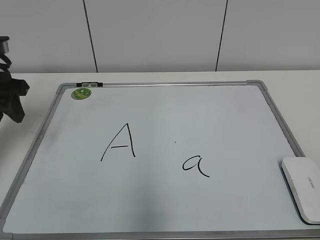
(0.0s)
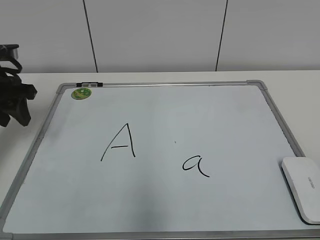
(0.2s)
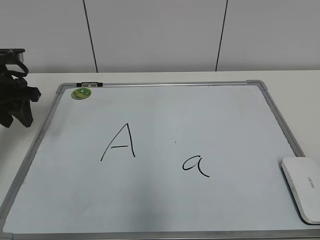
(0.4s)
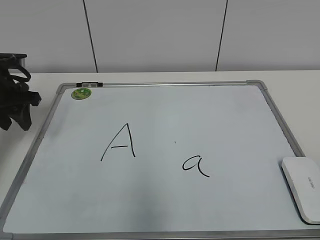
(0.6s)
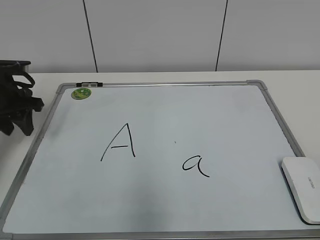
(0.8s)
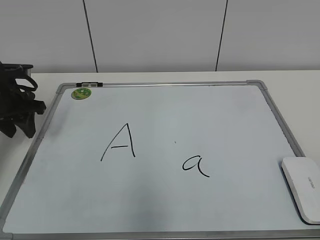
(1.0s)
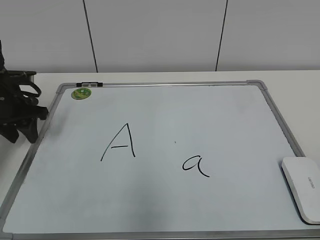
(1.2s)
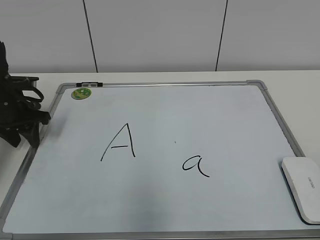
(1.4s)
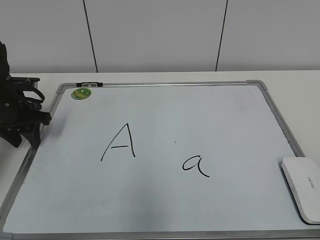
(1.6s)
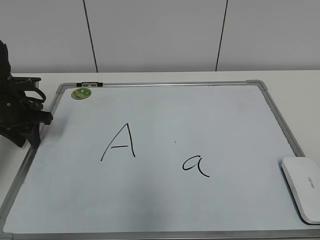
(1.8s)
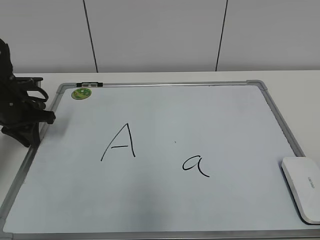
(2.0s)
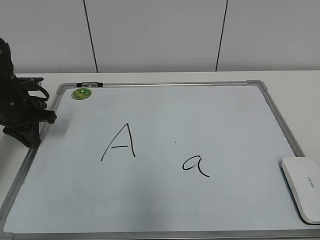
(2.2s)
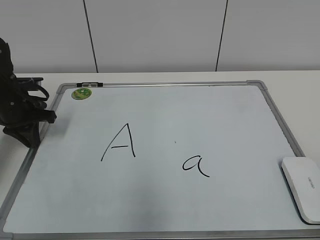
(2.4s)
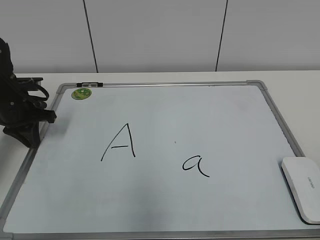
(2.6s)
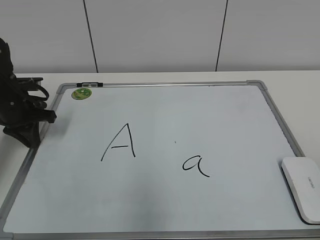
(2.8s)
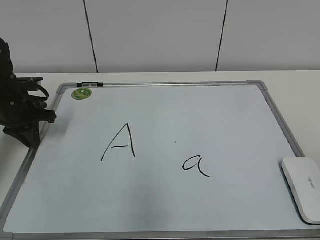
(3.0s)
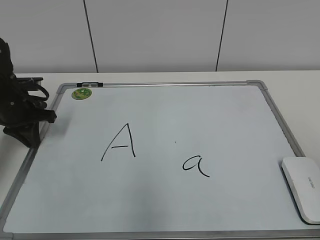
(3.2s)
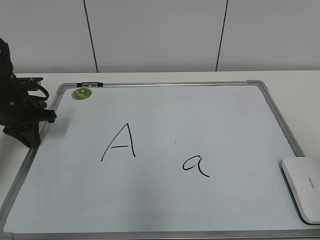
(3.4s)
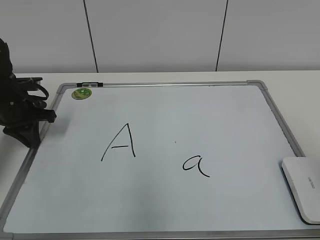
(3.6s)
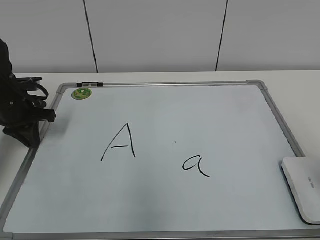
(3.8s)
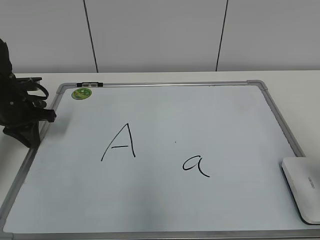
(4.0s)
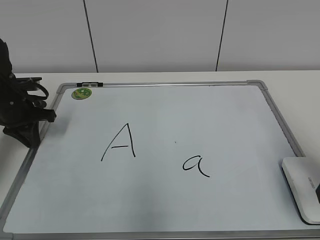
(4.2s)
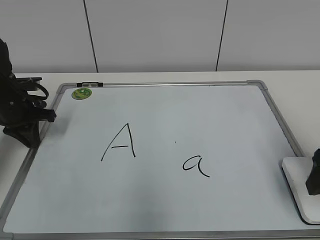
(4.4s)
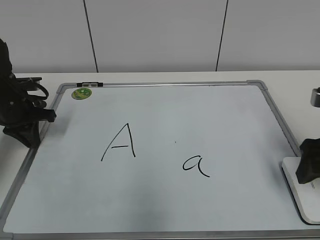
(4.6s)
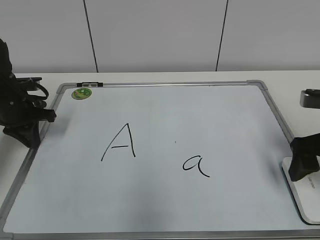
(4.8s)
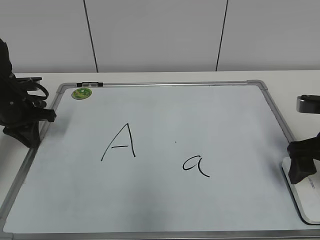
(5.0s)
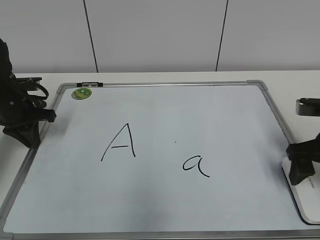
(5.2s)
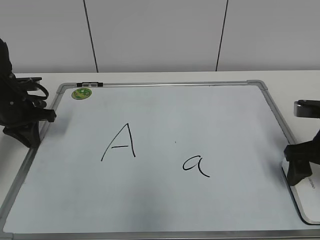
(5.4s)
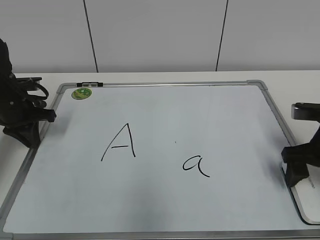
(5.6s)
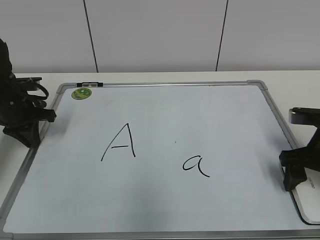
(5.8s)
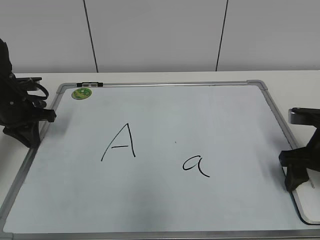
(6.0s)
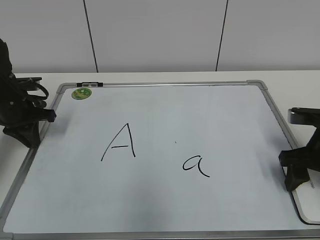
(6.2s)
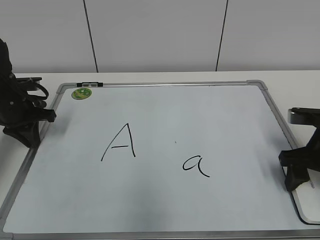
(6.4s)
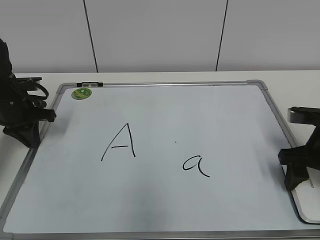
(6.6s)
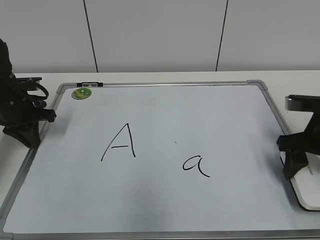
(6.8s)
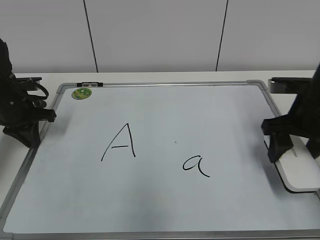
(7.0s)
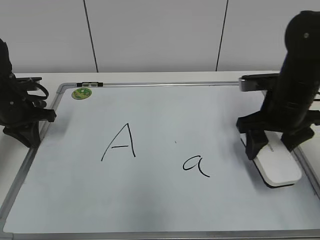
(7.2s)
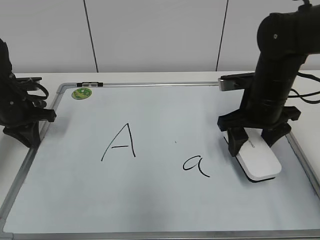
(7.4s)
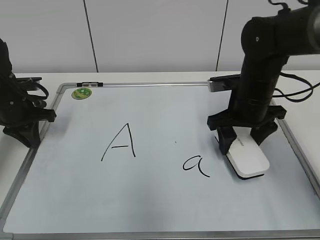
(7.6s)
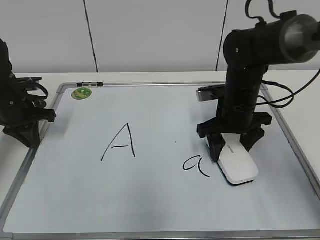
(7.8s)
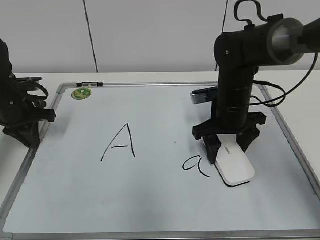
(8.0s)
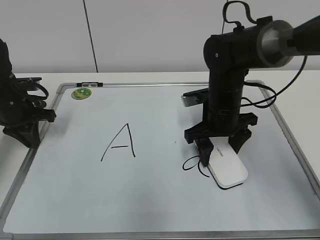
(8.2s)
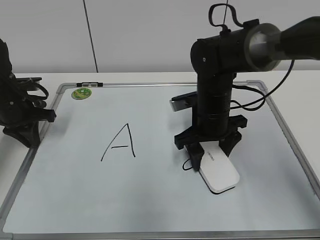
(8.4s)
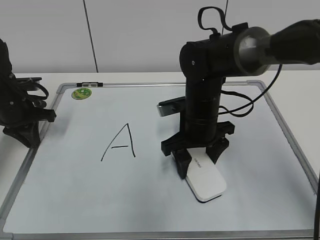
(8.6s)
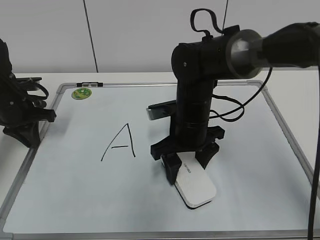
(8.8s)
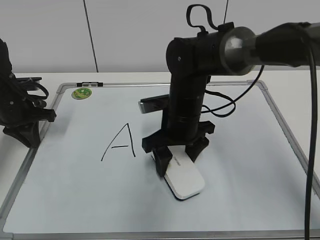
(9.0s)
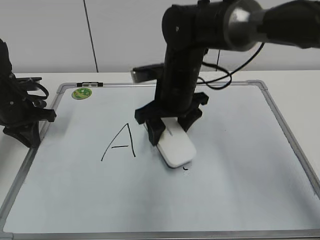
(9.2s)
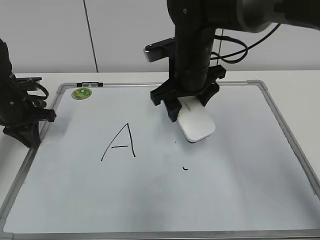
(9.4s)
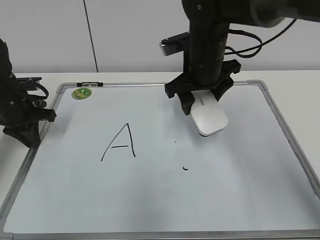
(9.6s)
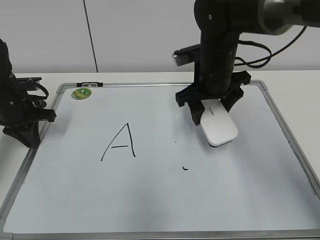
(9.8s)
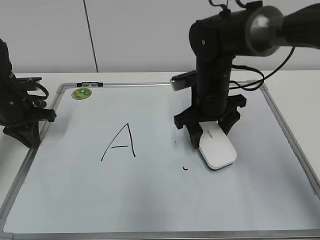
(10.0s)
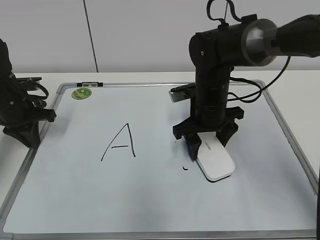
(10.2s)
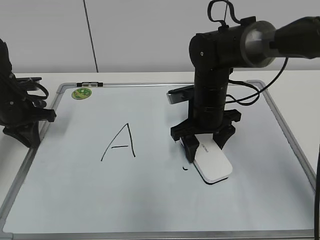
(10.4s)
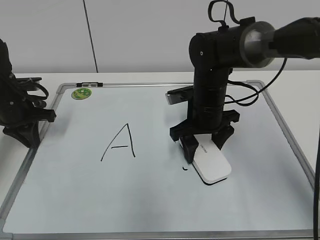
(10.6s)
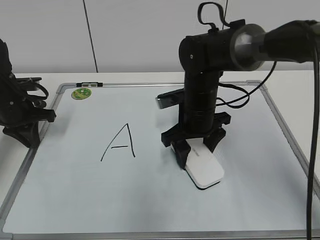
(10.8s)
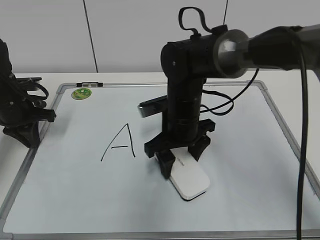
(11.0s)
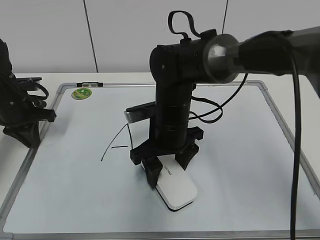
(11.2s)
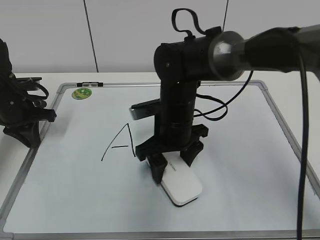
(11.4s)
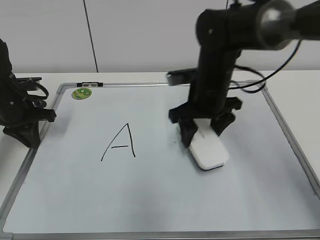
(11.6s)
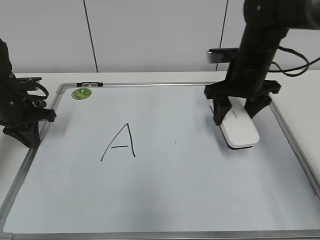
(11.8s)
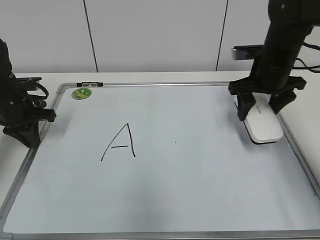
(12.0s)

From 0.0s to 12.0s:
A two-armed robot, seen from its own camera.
Task of the whole recording: pick up the eraser on the blackboard and erase the letter "a".
Step, from 0.0s to 2.0s: Hold the drawing board steady with your left hand.
Step, from 2.2s to 6.2s: Grab the eraser with your right hand.
Step, from 6.6s to 11.2s: Erase the letter a with your right hand.
From 0.0s to 1.6s: The left gripper heads downward, covering some 10 cm.
From 1.6s to 3.0s: The left gripper closes.
From 3.0s to 4.4s: The right gripper moves forward and downward, about 20 cm, and opens up.
From 4.4s to 6.0s: The right gripper moves forward and downward, some 10 cm, and closes.
From 6.0s to 7.6s: The right gripper heads to the left and forward, covering approximately 15 cm, and closes up.
From 7.6s to 9.0s: The right gripper heads to the left, covering some 10 cm.
From 9.0s to 10.4s: The right gripper reaches some 5 cm upward, then returns.
From 10.4s to 12.0s: The right gripper travels to the right and upward by some 15 cm.

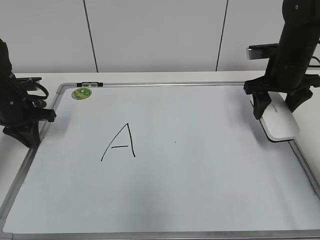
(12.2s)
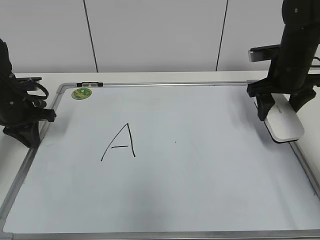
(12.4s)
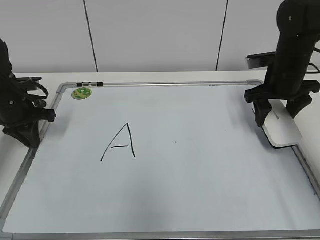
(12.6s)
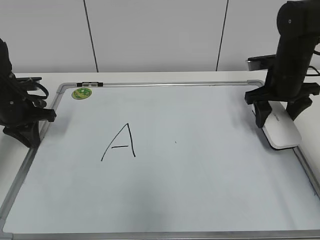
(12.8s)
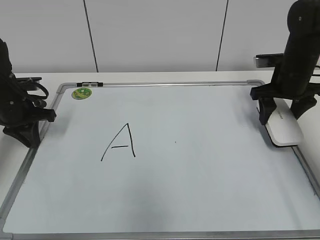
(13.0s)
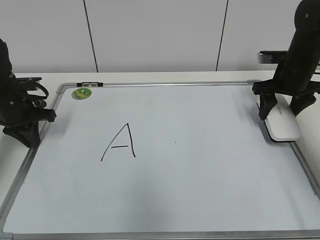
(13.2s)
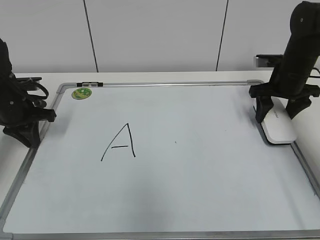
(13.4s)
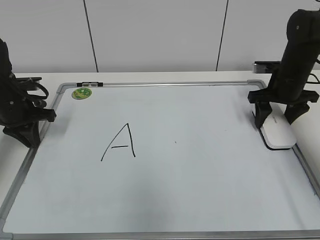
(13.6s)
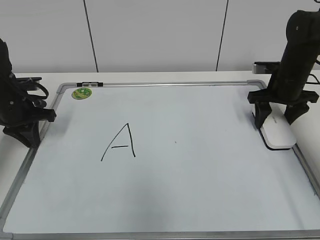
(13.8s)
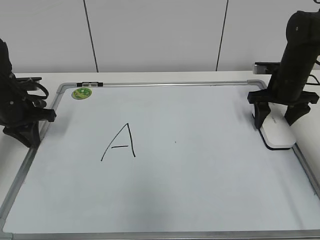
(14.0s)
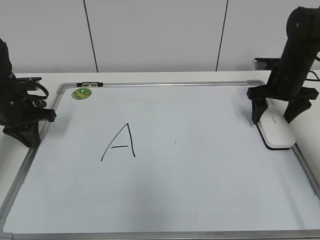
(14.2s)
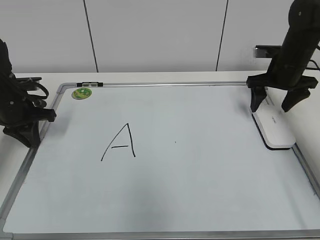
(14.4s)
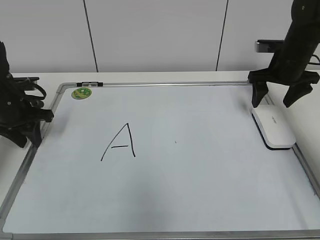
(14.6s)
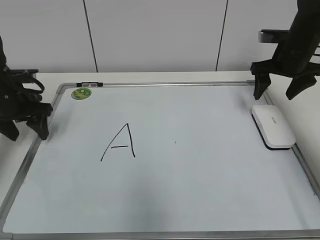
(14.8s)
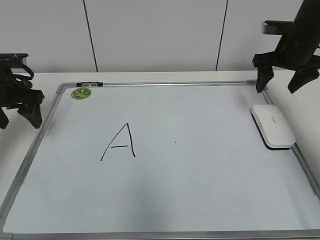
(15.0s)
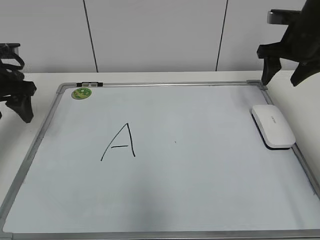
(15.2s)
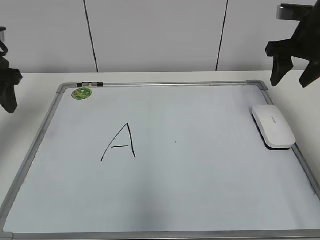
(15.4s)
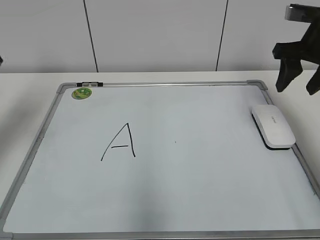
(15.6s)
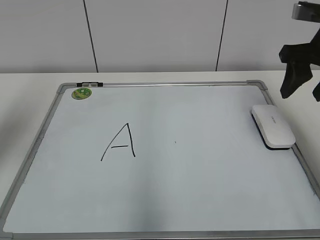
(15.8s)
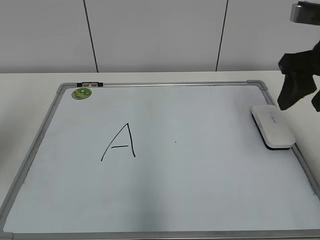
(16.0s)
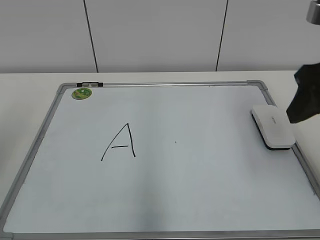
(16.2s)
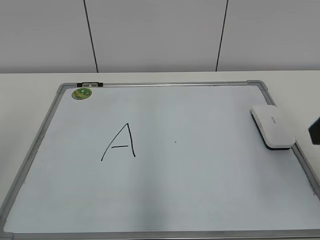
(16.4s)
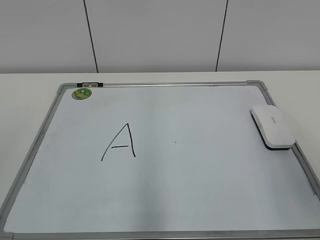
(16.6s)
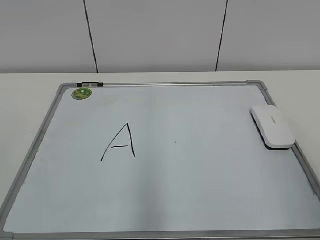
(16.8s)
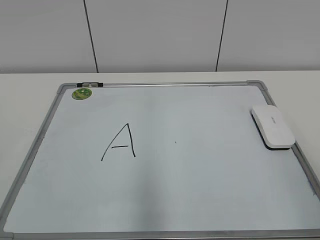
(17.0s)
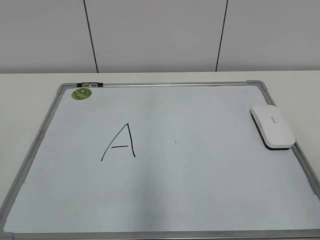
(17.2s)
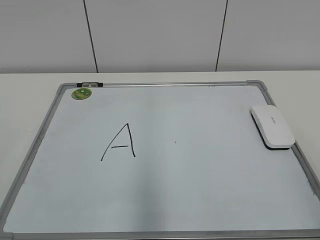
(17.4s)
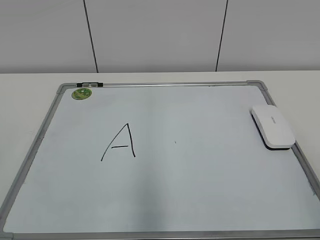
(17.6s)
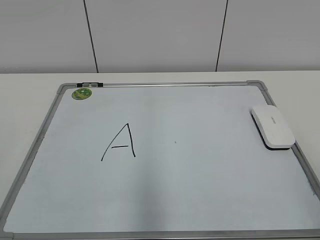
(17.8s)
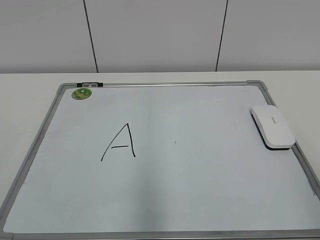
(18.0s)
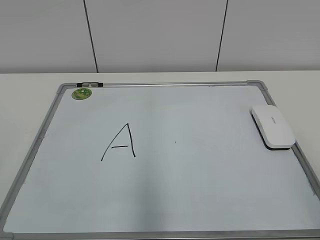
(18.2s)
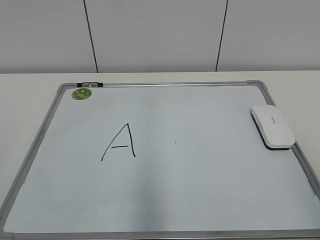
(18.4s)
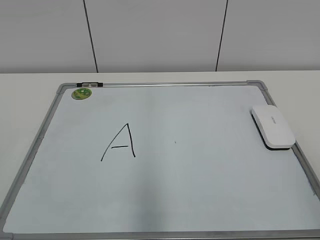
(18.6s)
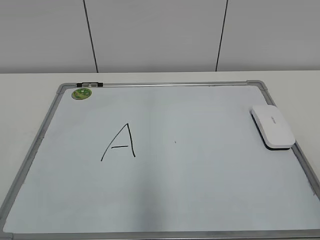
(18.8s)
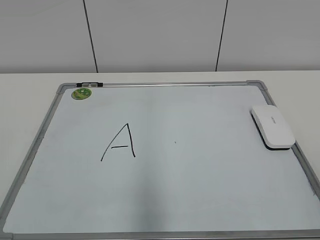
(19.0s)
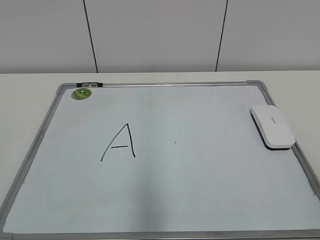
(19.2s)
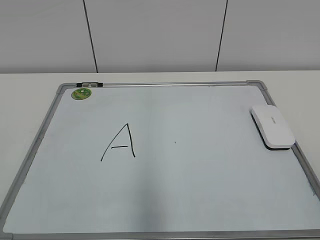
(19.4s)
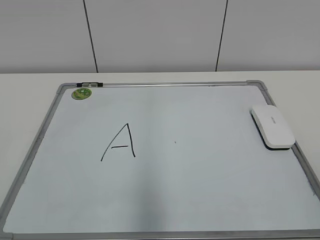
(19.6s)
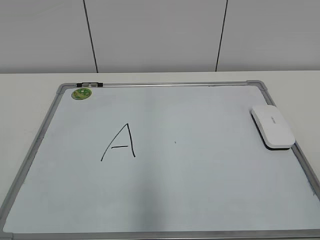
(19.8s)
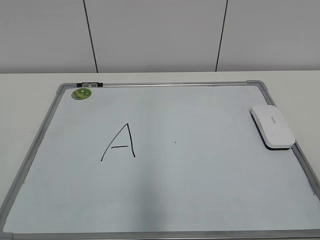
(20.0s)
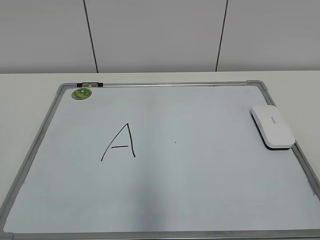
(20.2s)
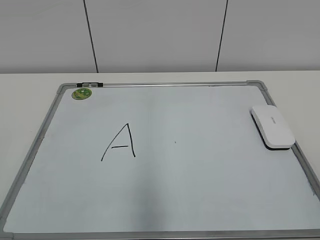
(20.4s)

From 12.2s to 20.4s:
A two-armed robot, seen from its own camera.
Task of the whole recording: pick up the eraser on the blackboard and erase the letter "a".
Step, from 12.2s to 14.2s: Put down the eraser with your right hand.
From 12.2s to 13.8s: The right gripper goes some 5 cm downward.
From 13.8s to 15.4s: The grippers both shift upward by roughly 10 cm. The right gripper opens, then closes again; the left gripper opens.
From 15.4s to 17.2s: Both grippers travel together backward, about 35 cm.

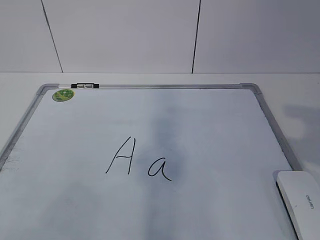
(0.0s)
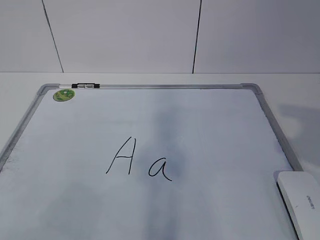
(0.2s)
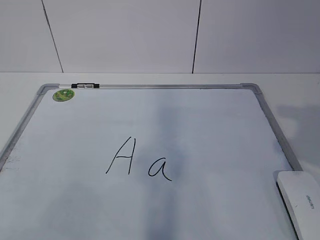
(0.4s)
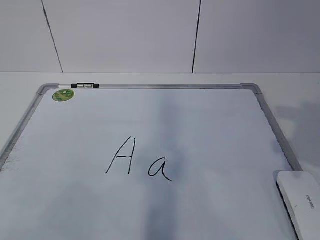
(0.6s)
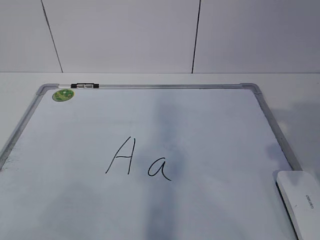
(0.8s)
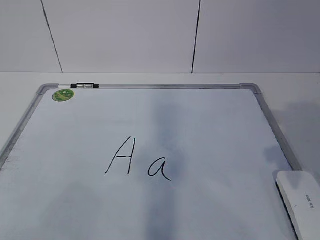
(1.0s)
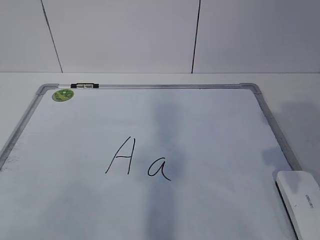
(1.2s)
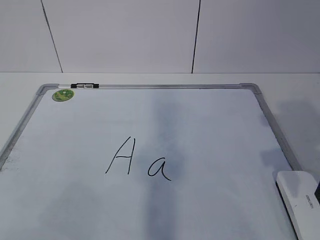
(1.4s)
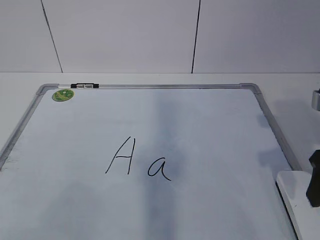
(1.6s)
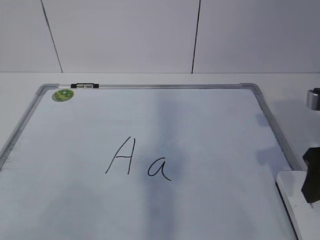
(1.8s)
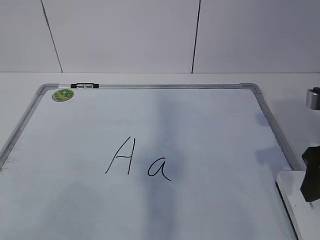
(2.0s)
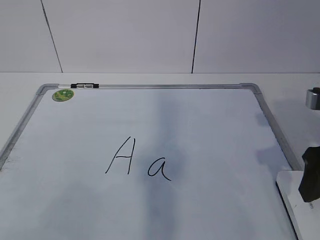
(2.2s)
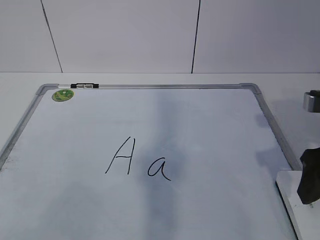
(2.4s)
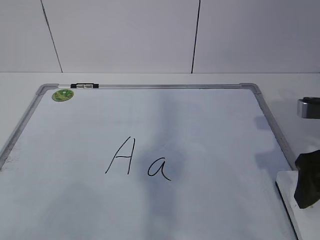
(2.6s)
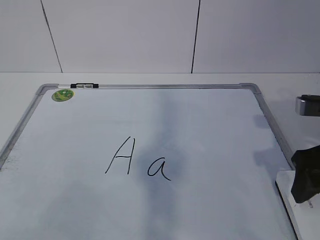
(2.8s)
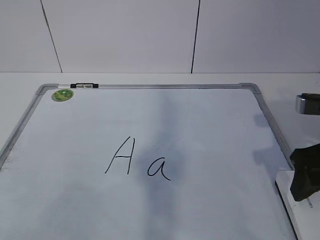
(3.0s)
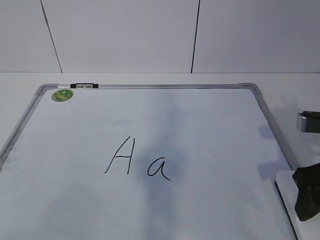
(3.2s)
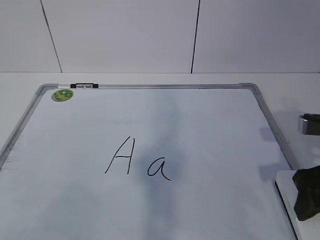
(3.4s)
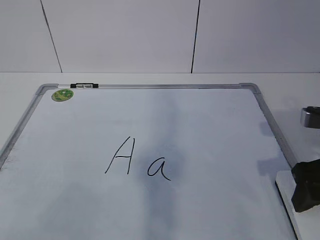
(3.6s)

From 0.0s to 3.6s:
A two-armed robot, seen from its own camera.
Task of the whole recording: pick up the eraser on the blackboard and erase the letter "a".
From 0.0s to 1.8s: The right gripper goes roughly 15 cm forward and downward, and closes its fingers.
From 1.8s to 3.6s: The right gripper opens and closes again.
